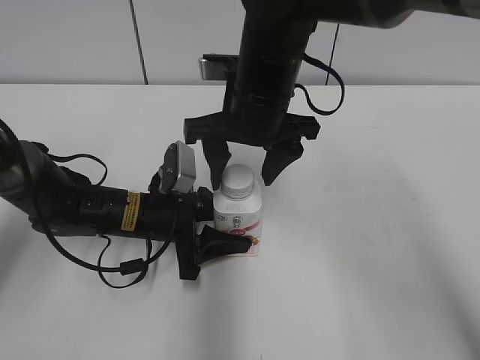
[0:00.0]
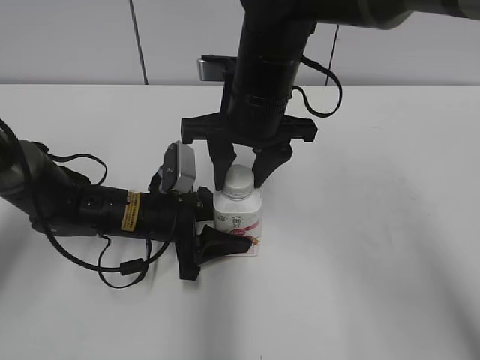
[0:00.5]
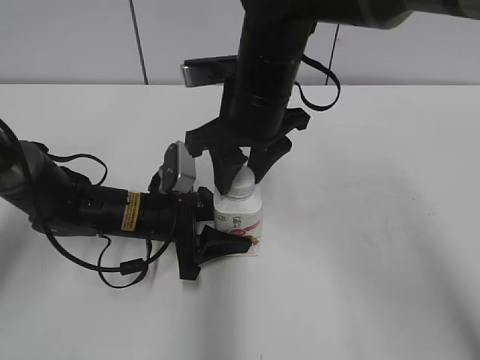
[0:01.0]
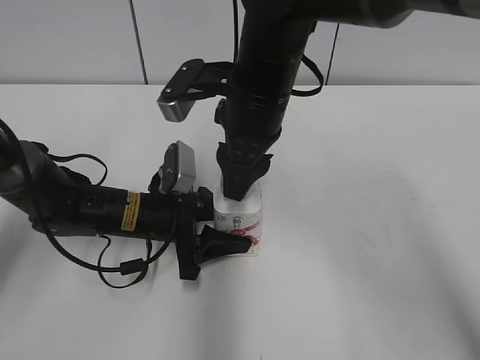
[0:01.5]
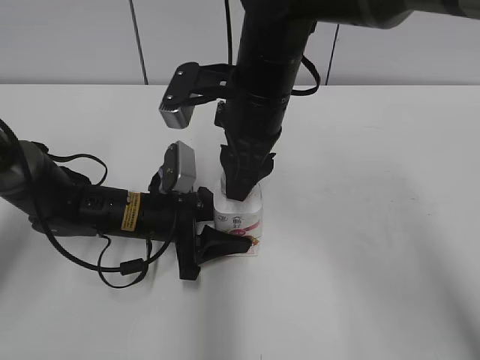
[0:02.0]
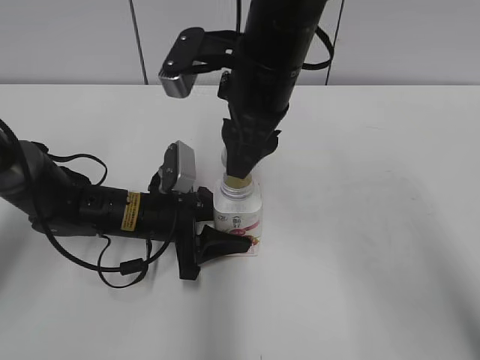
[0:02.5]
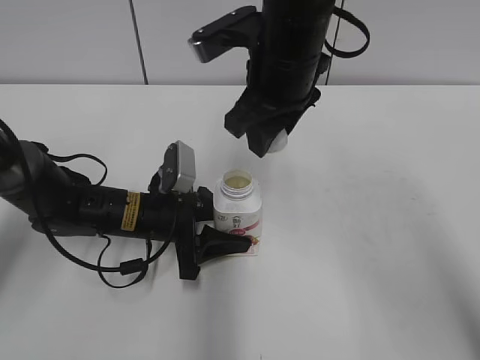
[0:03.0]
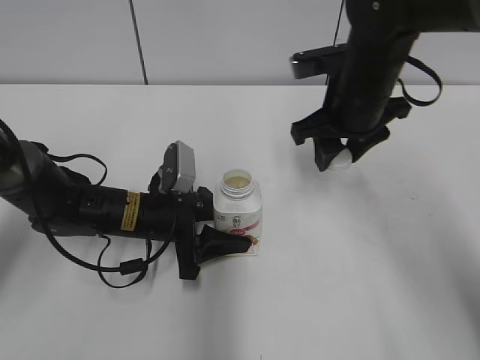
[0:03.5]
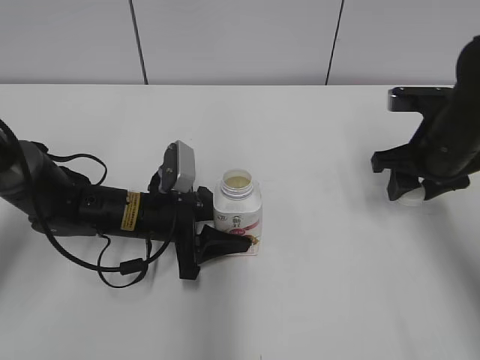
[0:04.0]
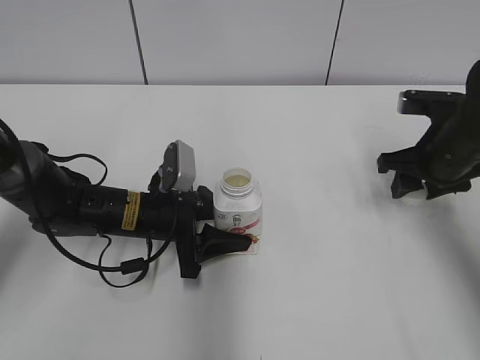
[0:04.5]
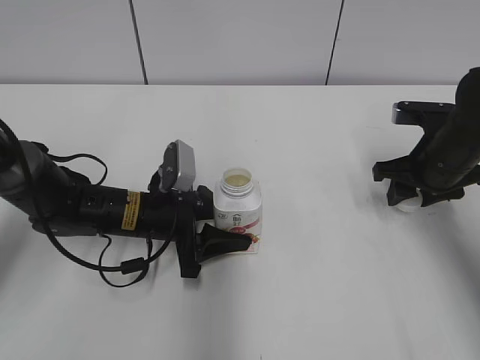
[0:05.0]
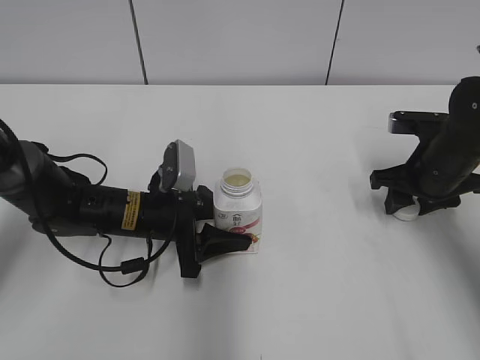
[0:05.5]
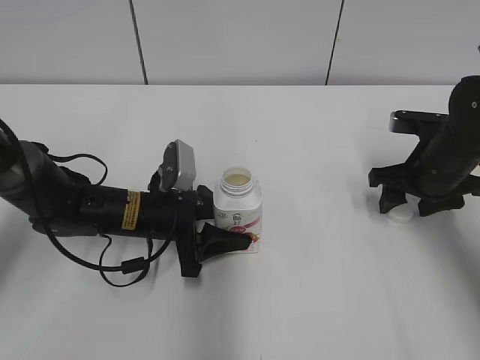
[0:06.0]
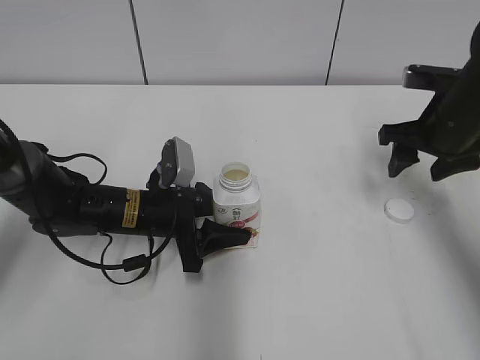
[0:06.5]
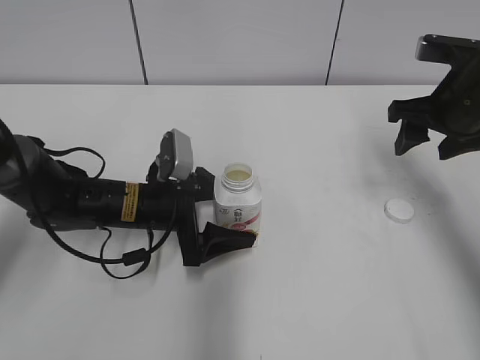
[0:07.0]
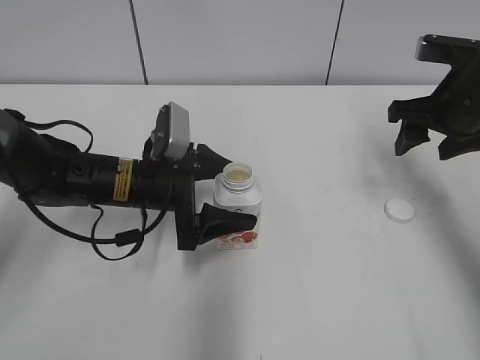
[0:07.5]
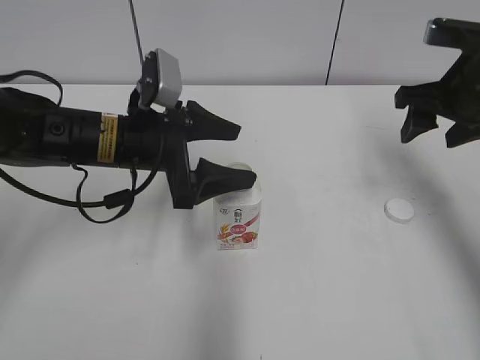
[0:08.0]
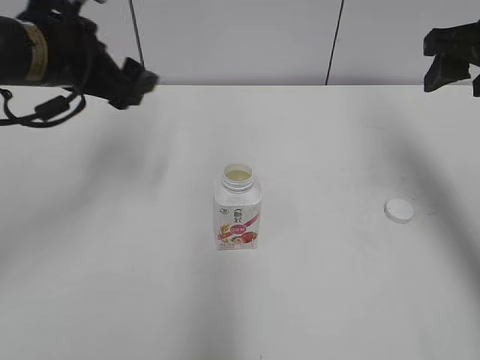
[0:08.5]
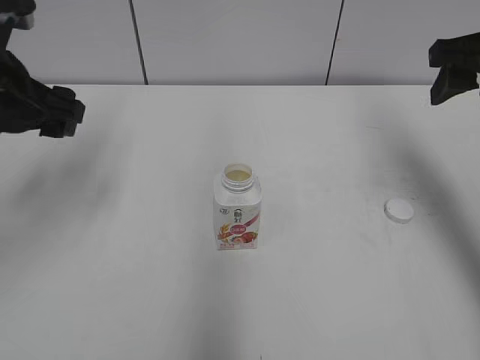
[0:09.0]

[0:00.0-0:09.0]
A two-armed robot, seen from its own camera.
Step, 0:00.0 to 0:02.5: Unscrew the bottle cap with the right gripper while holding the bottle with the left gripper.
Step, 0:03.0 to 0:05.5: Place the bottle cap on the table with the right gripper.
0:00.0 to 0:02.0: The right gripper closes.
0:02.0 to 0:04.5: The right gripper goes about 25 cm to the right.
0:04.5 to 0:07.0: The left gripper opens up. The right gripper moves upward, roughly 5 cm, and opens up.
0:07.0 to 0:09.0: The right gripper shifts approximately 10 cm upward. The left gripper is displaced upward and to the left by approximately 25 cm.

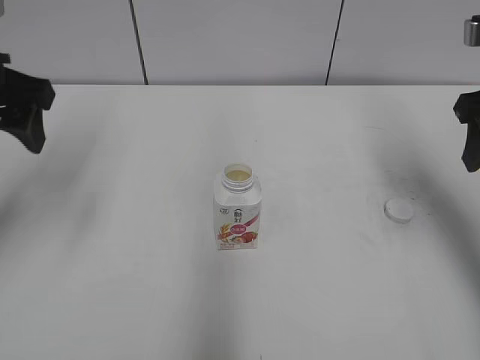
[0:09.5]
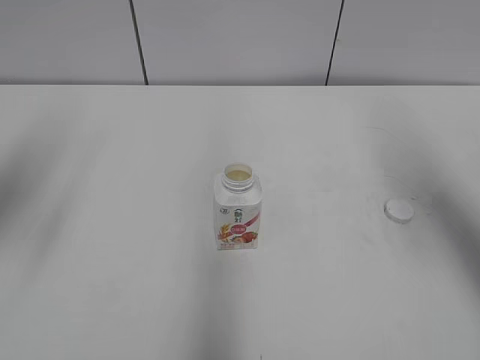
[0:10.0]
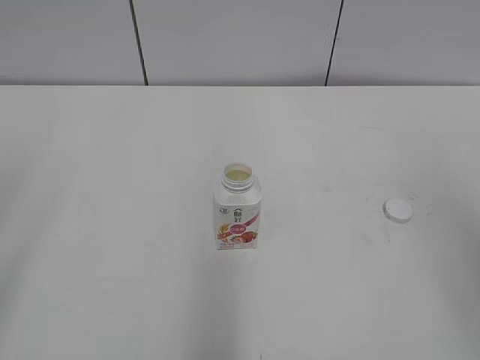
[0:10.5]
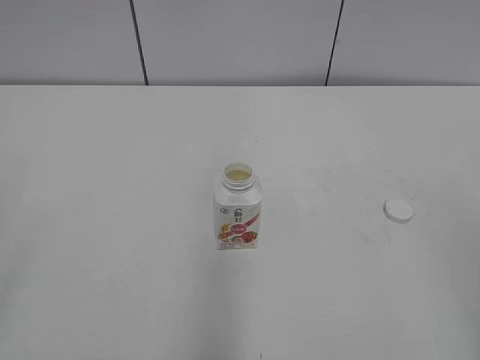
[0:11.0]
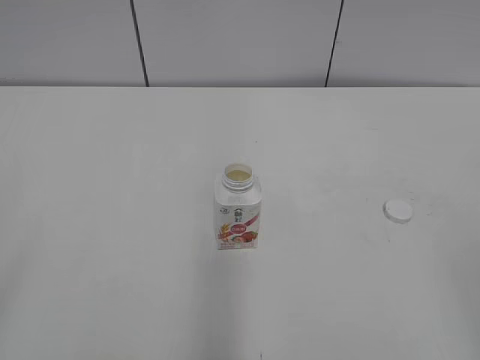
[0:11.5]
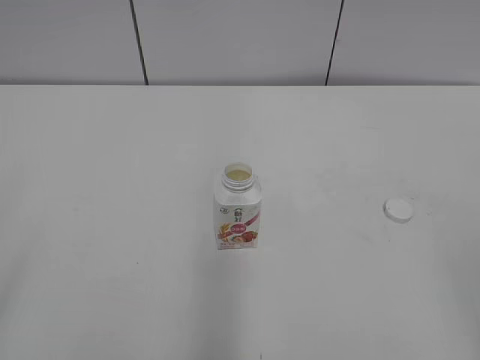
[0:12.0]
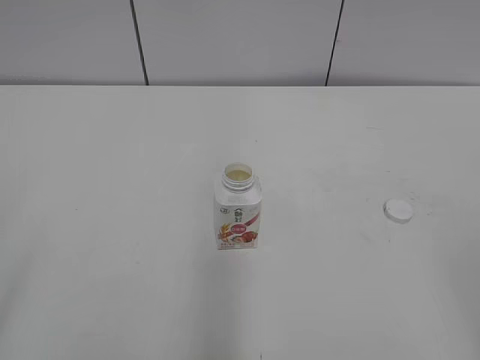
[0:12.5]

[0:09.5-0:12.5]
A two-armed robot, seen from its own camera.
0:09.5 to 0:11.0: The two grippers go roughly 30 cm backward.
